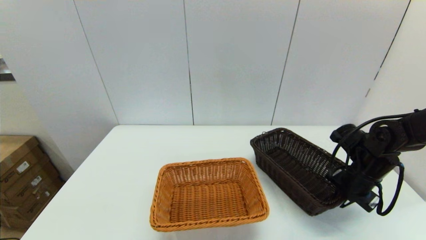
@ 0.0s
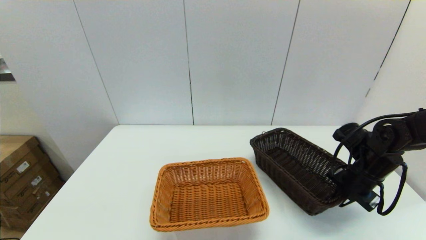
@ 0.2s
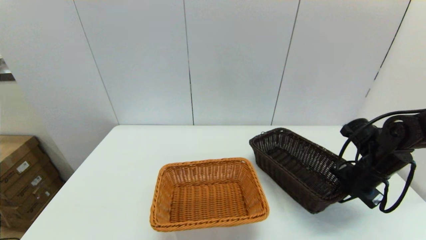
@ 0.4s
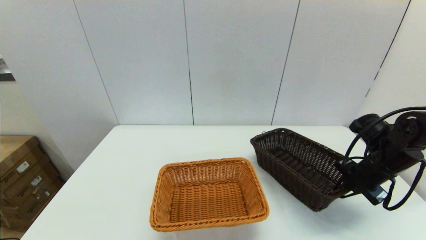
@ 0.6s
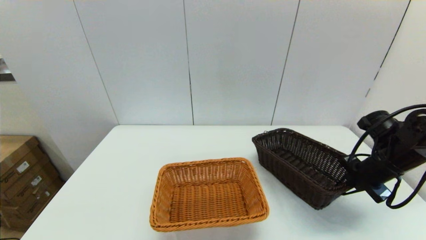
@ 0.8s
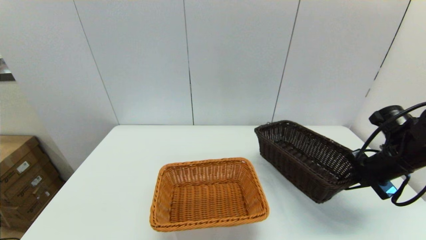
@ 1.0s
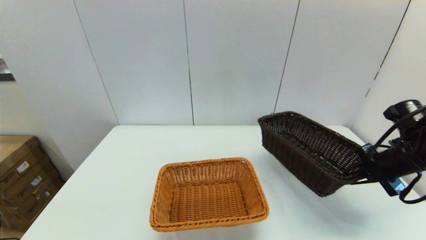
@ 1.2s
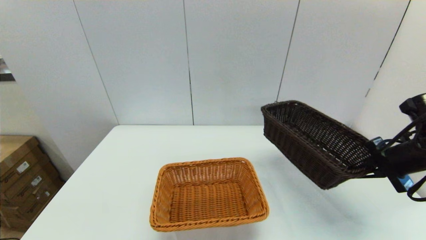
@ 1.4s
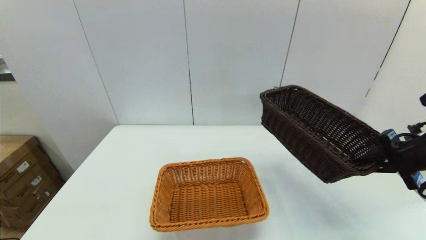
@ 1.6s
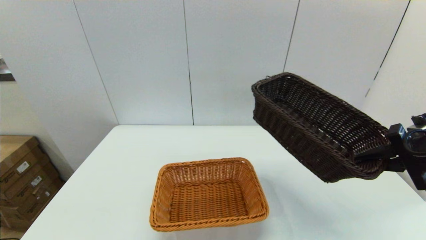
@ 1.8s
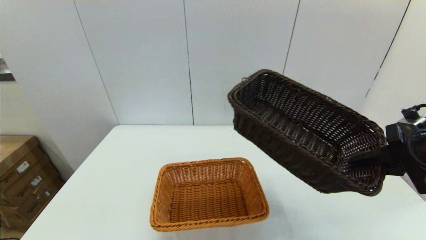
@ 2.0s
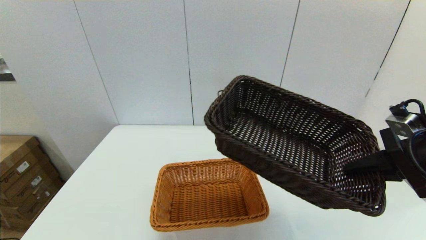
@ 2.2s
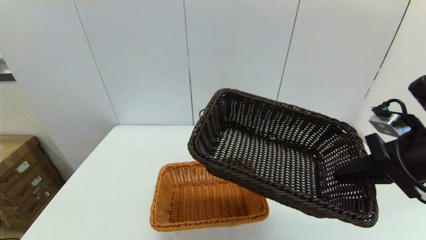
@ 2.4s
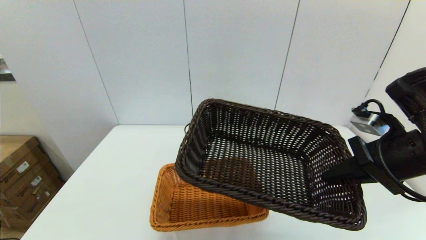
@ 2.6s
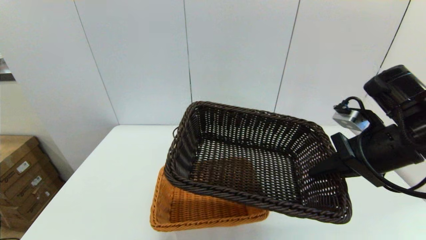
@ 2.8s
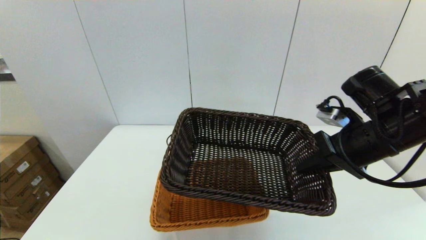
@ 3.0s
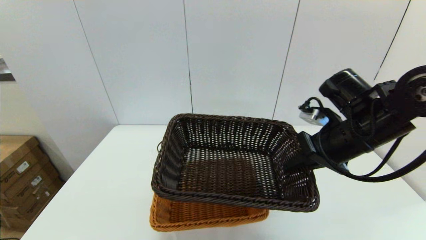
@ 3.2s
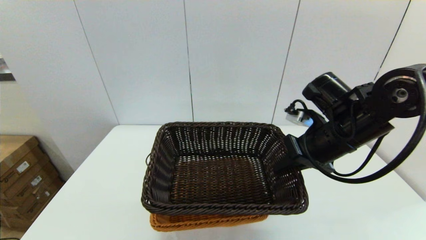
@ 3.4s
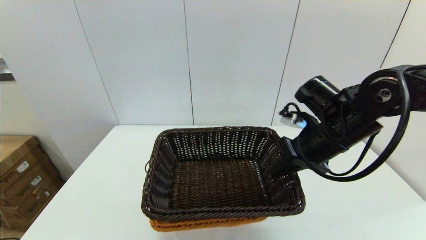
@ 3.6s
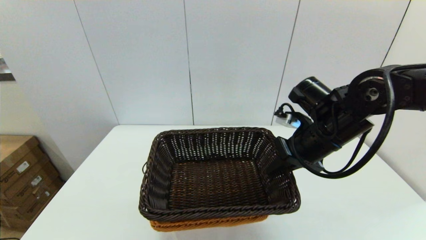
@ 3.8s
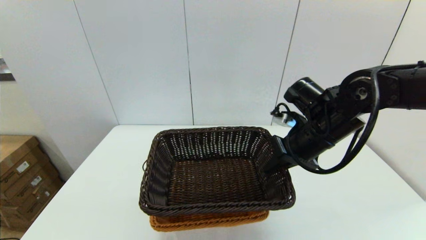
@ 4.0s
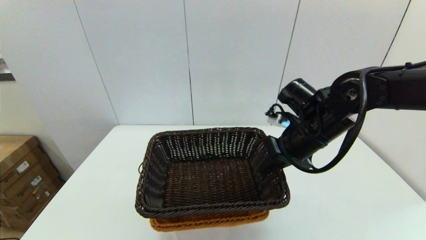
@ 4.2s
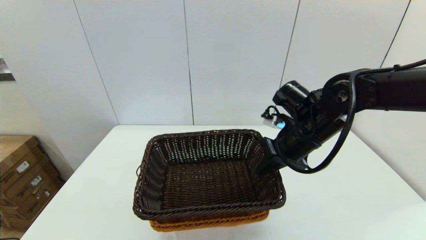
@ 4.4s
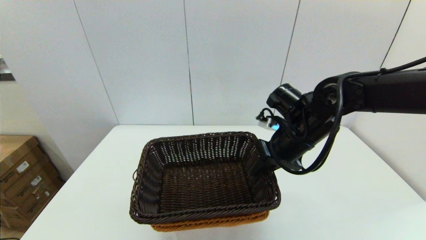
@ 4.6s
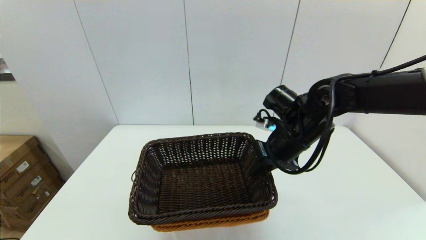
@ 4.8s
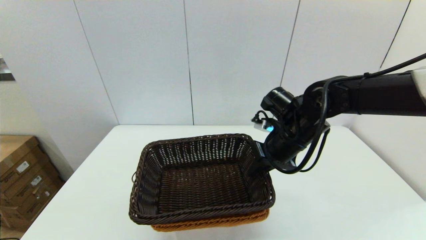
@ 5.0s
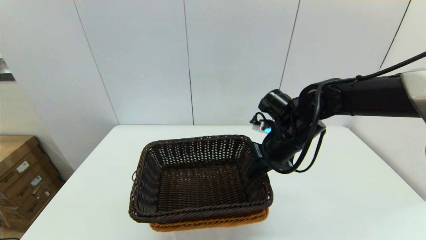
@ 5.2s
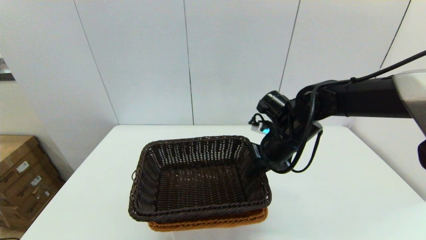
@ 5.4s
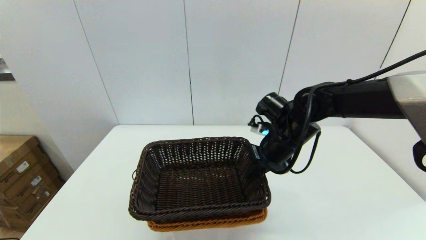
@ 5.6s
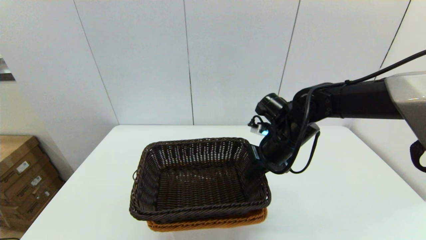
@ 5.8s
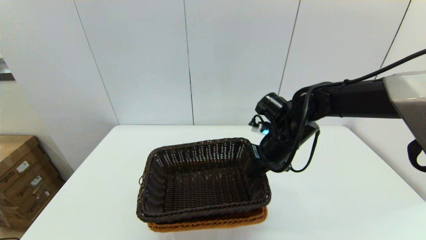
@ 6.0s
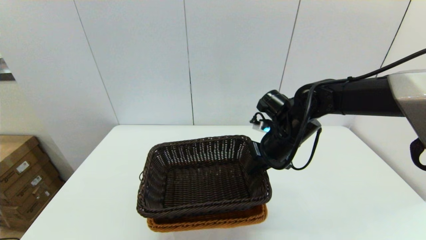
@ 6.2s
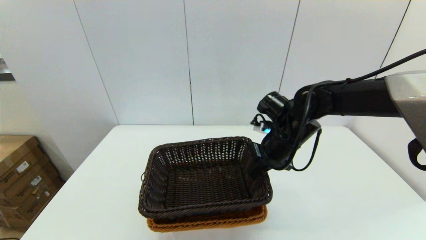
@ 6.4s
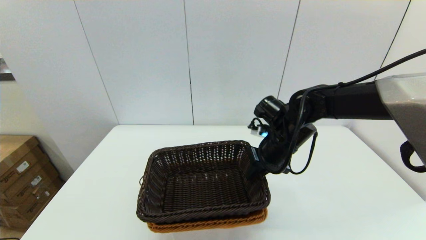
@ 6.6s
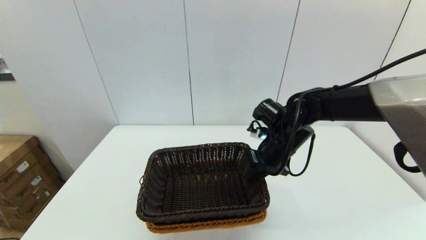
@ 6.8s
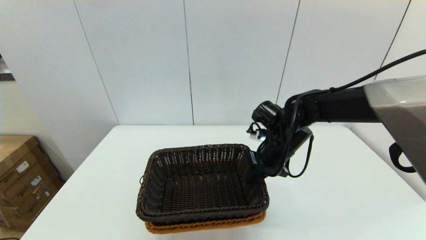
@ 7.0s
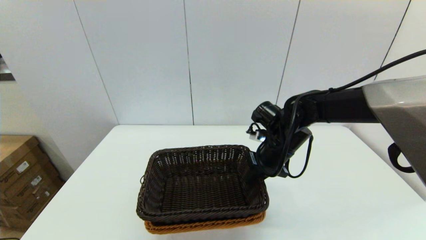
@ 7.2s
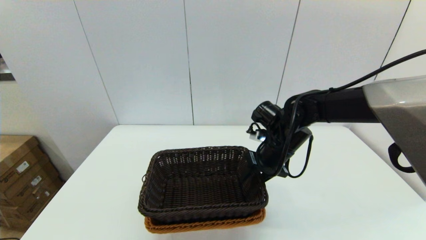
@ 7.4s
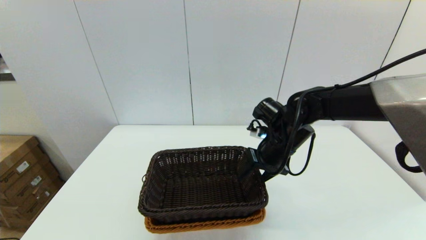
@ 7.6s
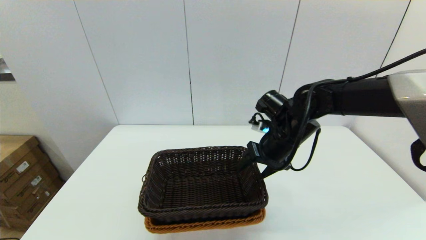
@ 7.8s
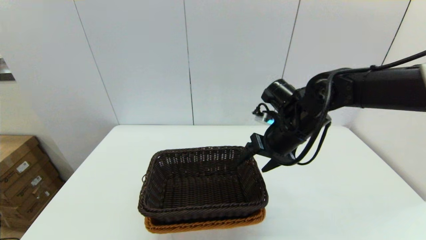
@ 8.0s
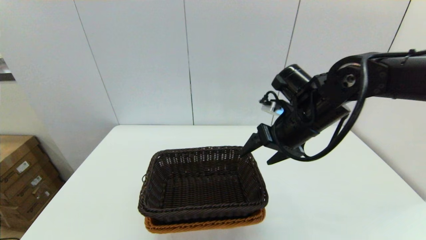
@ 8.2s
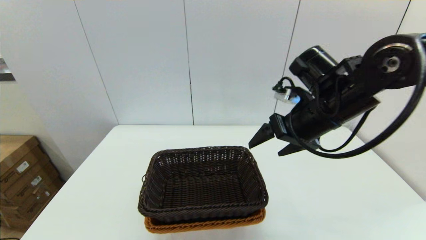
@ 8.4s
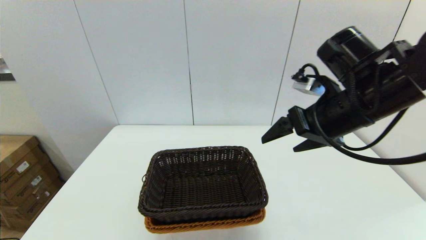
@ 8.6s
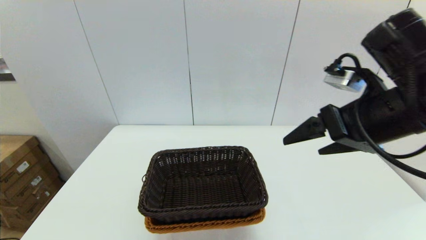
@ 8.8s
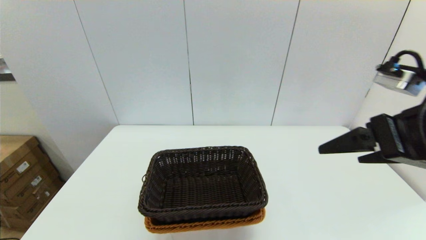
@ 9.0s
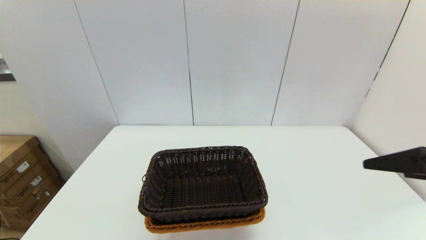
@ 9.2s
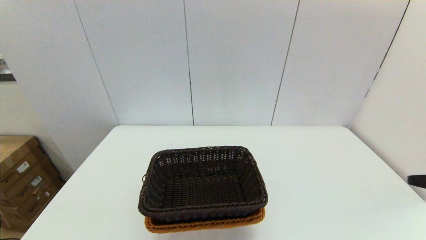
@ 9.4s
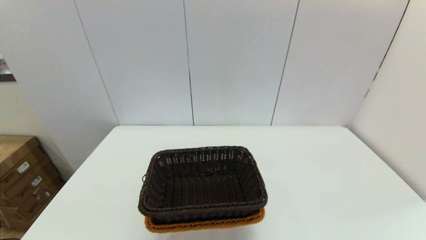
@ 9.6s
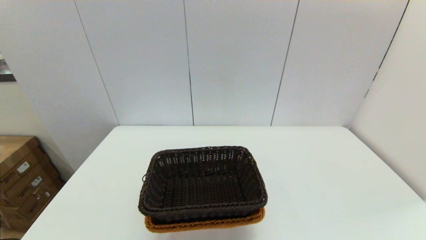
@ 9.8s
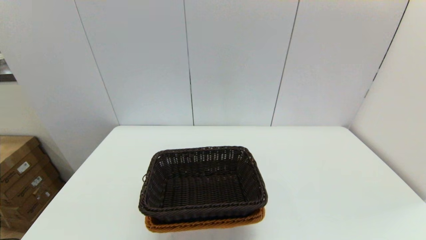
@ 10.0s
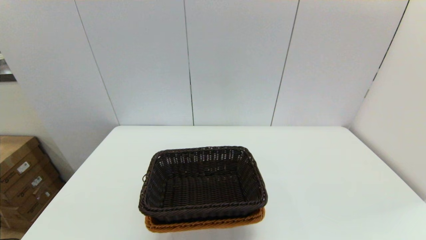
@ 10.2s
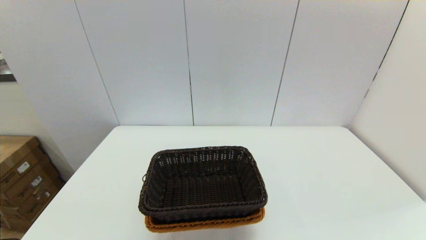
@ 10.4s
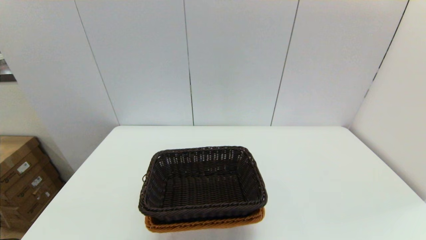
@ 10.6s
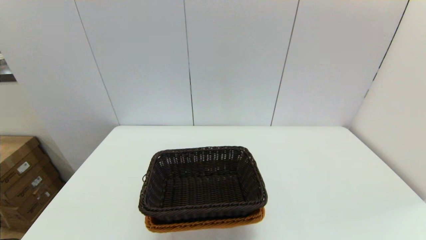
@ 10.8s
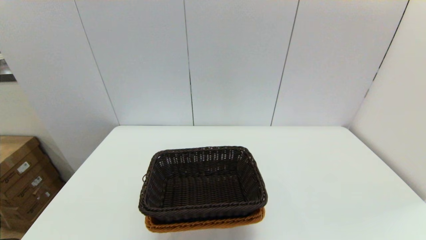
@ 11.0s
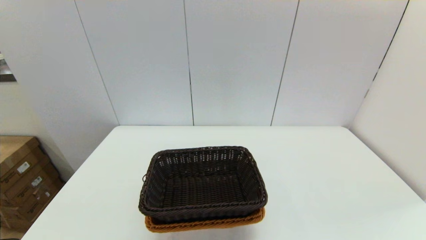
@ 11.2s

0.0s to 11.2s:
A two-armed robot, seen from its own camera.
Task of the whole recording: stack a basket on top of another basket.
Step, 0.0s to 7.8s: Place the dark basket into the light color basket with the right gripper.
0.0s to 1.6s: The right gripper moves upward and backward, roughly 15 cm.
1.6s to 3.2s: The right gripper travels to the left by some 15 cm.
3.2s to 4.8s: The right gripper heads to the left and forward, covering approximately 10 cm.
4.8s to 6.4s: There are only small adjustments of the grippers.
6.4s to 8.0s: The right gripper opens.
8.0s to 9.6s: The right gripper is displaced backward and to the right by some 35 cm.

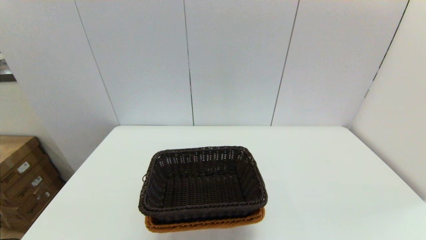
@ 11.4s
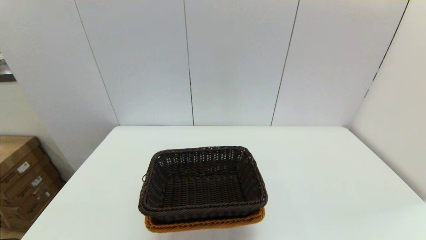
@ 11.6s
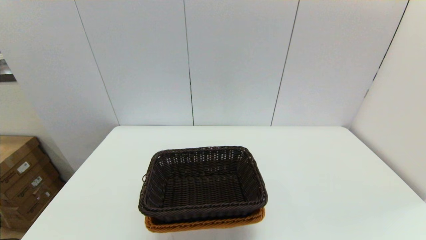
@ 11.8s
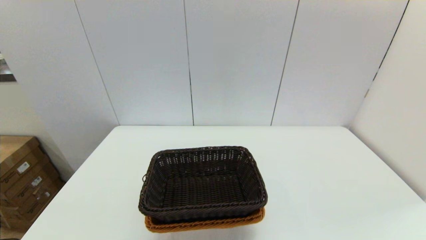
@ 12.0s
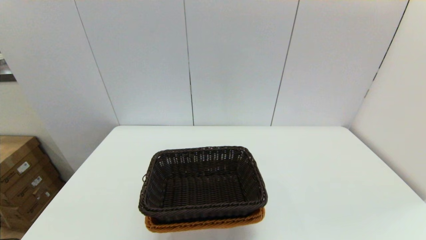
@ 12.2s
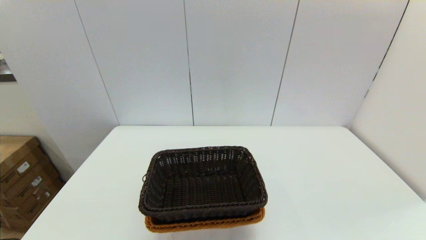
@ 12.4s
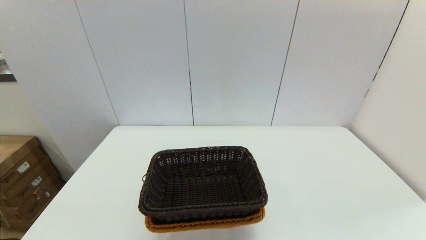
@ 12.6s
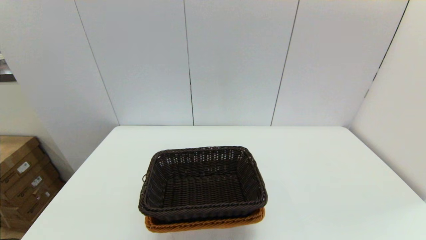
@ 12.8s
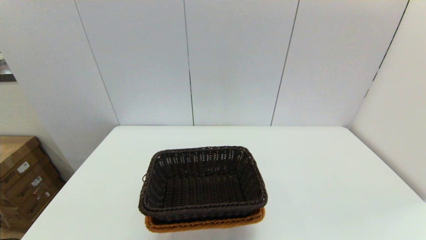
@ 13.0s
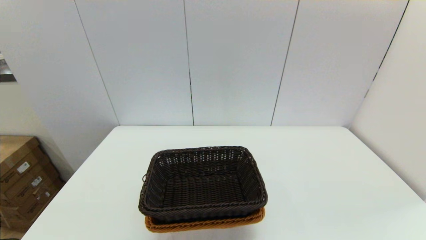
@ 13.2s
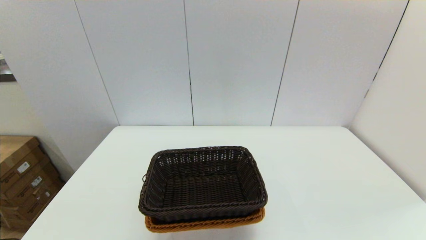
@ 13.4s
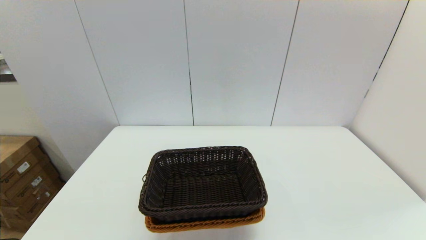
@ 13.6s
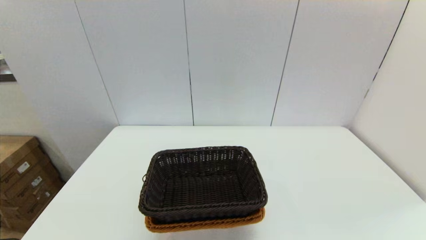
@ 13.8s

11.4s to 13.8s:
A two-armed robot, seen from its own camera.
Task of the whole recording: stack a basket on top of another basket.
12.6s to 13.8s: Both grippers stay put.
